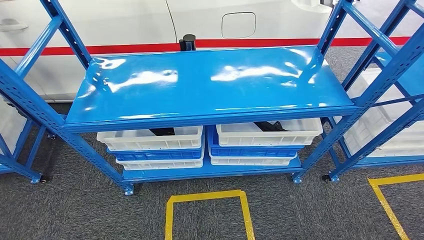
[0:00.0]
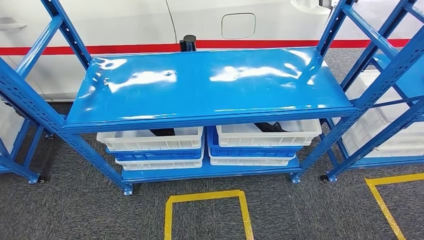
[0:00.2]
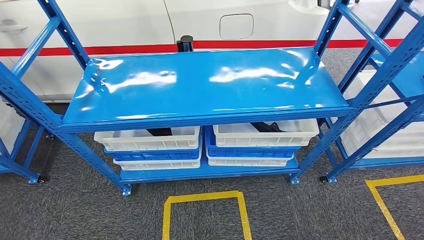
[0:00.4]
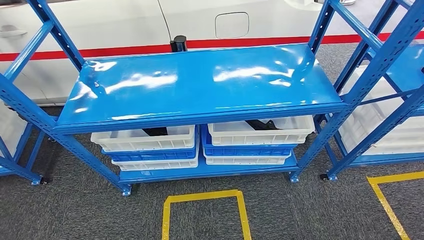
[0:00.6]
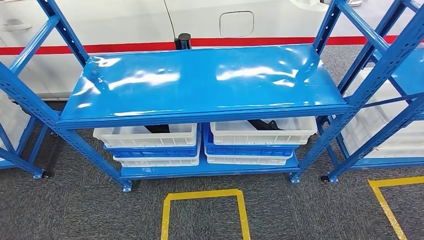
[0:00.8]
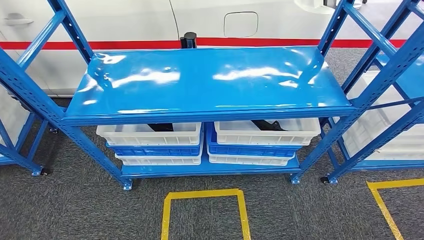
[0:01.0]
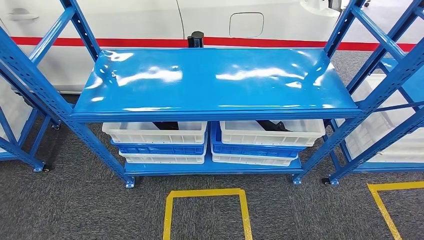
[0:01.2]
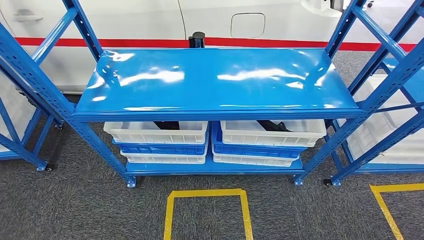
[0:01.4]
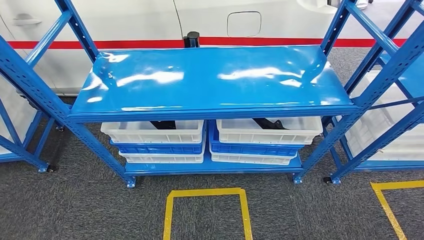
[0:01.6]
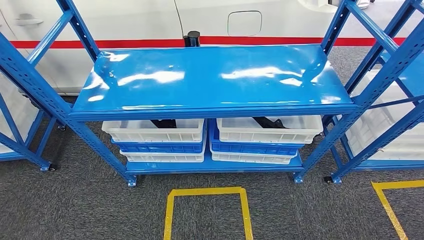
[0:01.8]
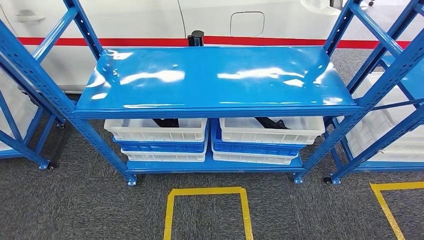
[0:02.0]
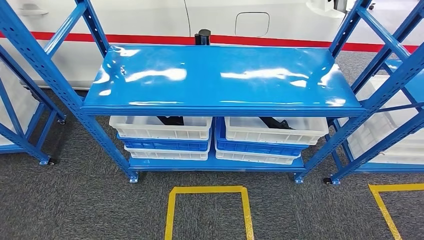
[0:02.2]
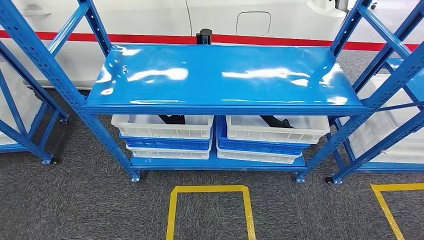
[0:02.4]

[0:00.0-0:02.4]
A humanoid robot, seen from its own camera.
Step, 0:00.0 to 0:02.2: Return to the initial position at the shelf.
